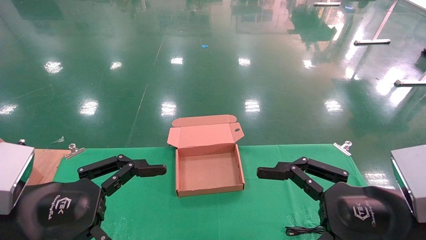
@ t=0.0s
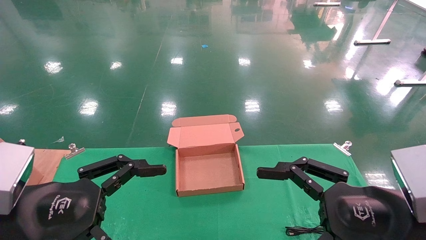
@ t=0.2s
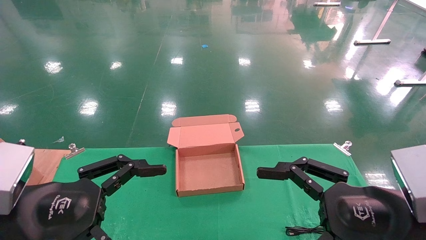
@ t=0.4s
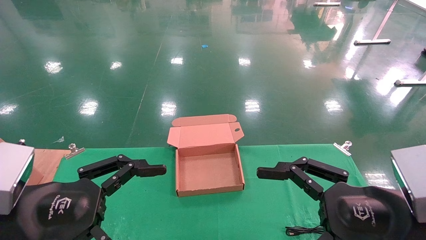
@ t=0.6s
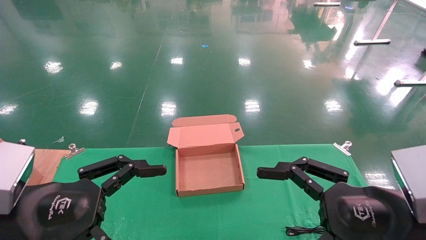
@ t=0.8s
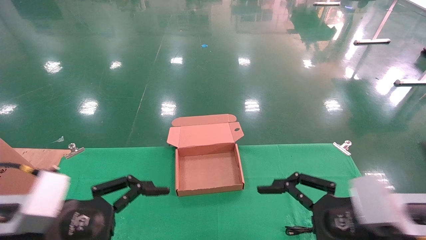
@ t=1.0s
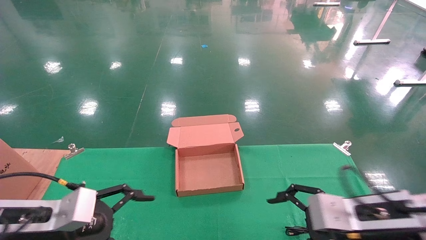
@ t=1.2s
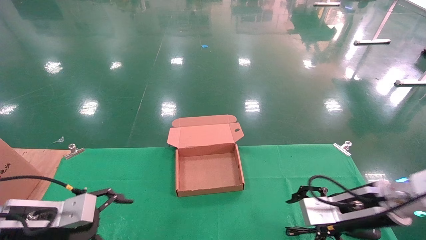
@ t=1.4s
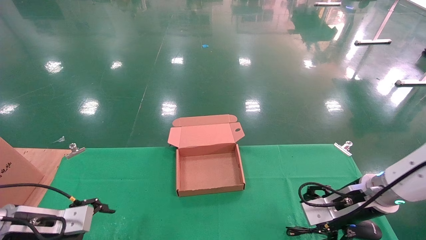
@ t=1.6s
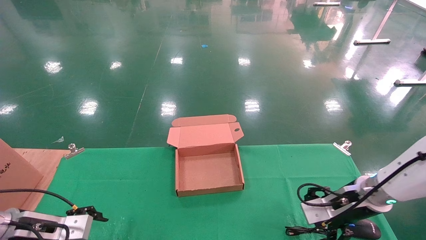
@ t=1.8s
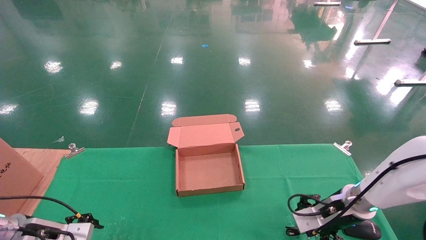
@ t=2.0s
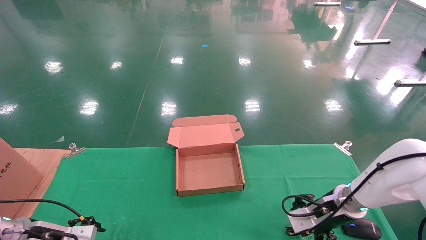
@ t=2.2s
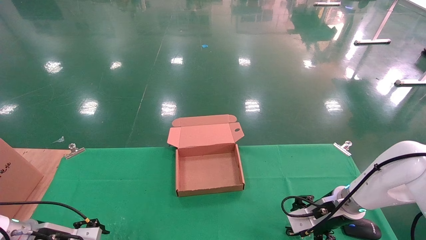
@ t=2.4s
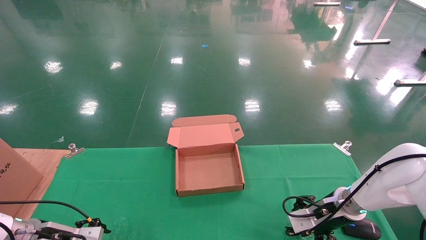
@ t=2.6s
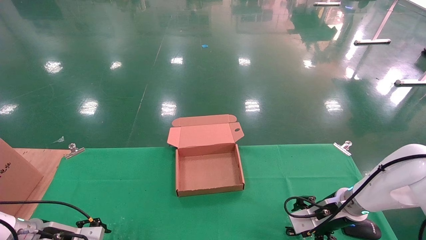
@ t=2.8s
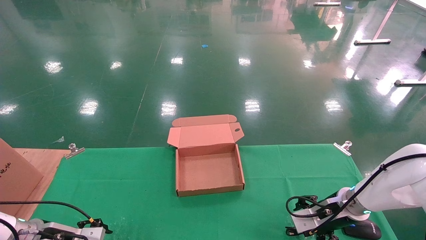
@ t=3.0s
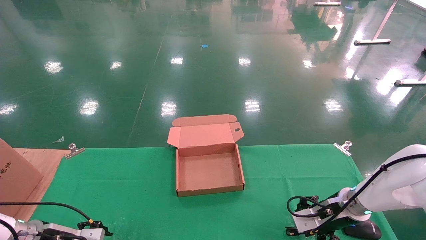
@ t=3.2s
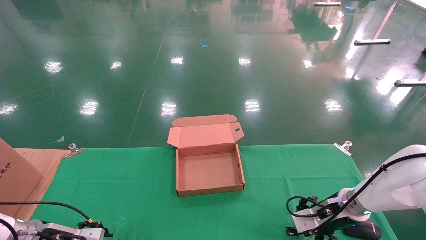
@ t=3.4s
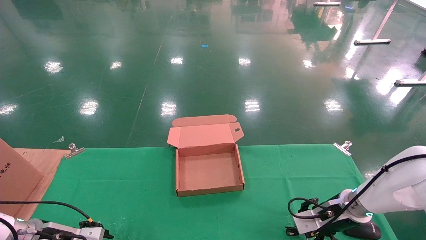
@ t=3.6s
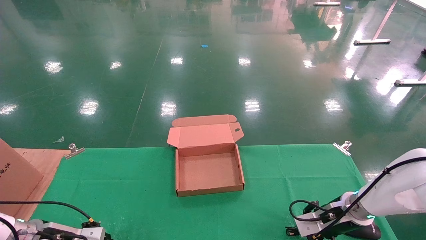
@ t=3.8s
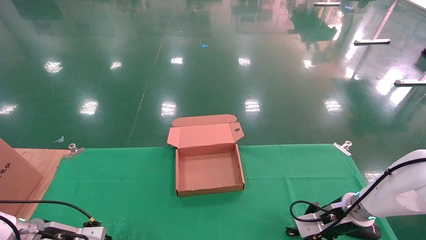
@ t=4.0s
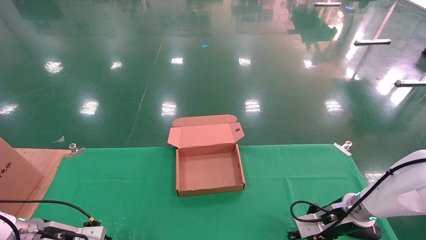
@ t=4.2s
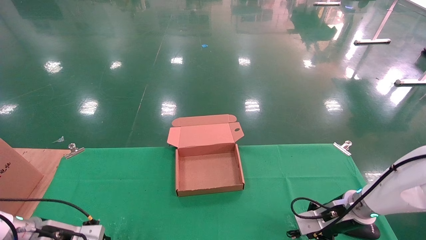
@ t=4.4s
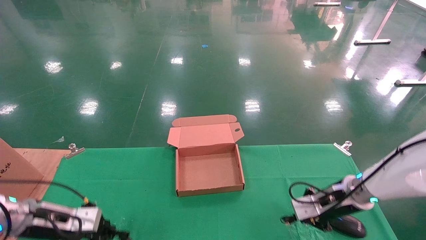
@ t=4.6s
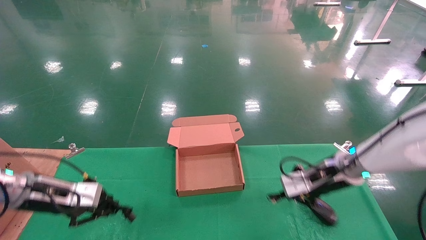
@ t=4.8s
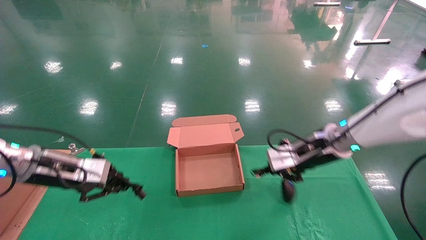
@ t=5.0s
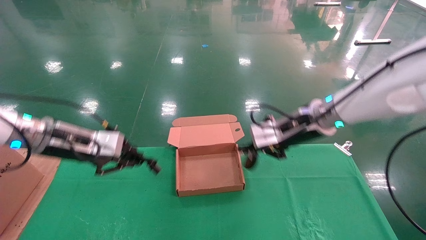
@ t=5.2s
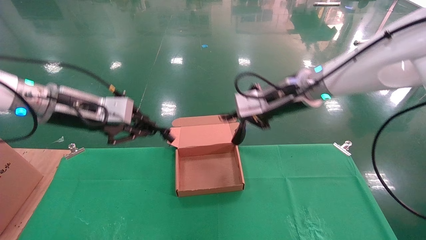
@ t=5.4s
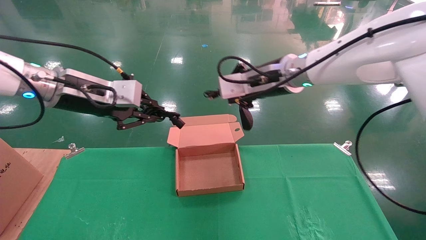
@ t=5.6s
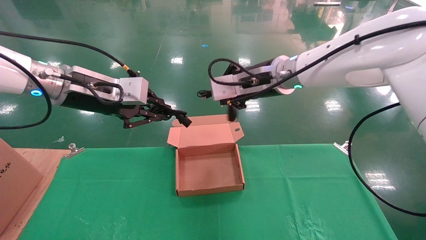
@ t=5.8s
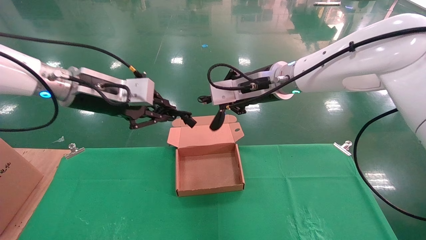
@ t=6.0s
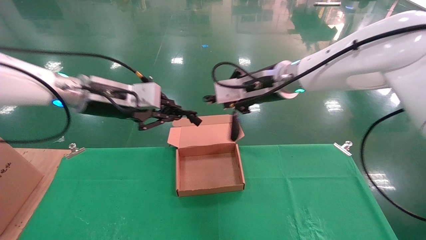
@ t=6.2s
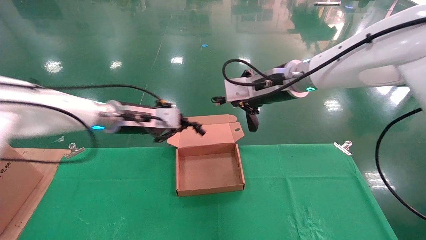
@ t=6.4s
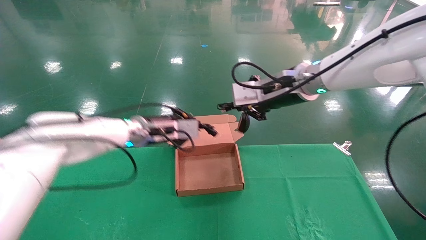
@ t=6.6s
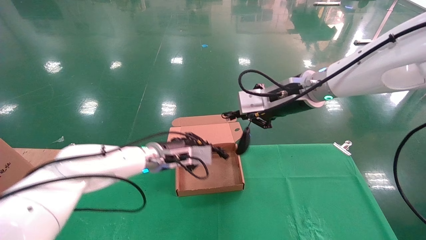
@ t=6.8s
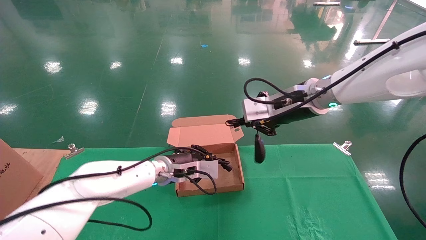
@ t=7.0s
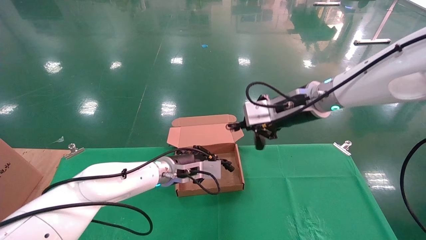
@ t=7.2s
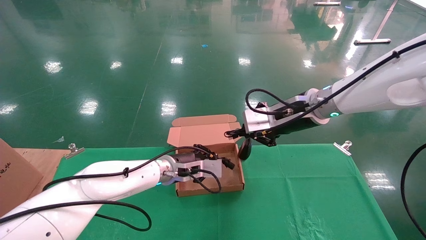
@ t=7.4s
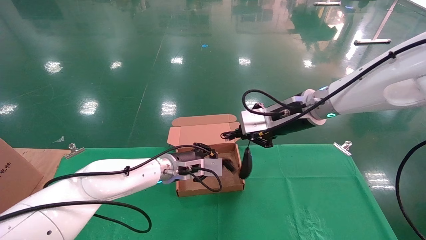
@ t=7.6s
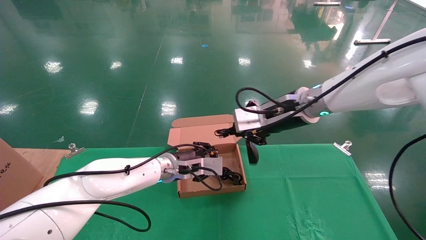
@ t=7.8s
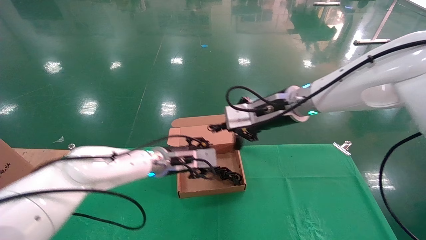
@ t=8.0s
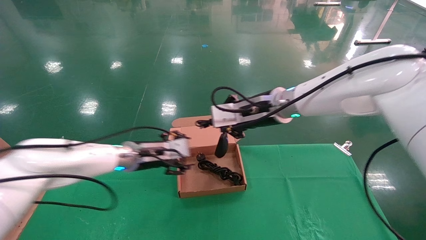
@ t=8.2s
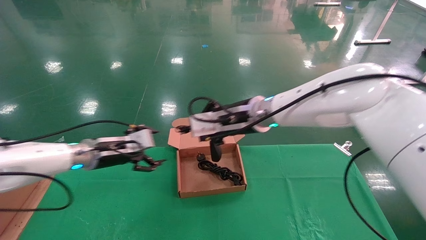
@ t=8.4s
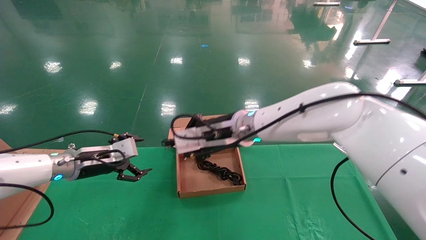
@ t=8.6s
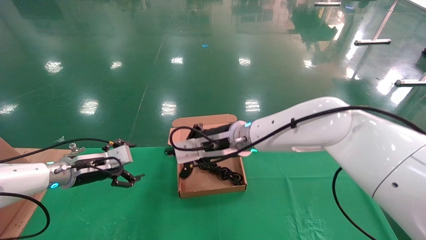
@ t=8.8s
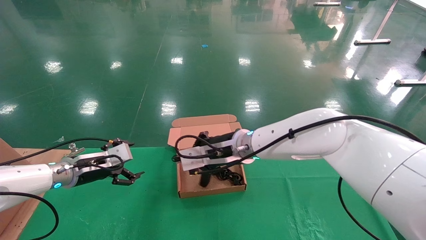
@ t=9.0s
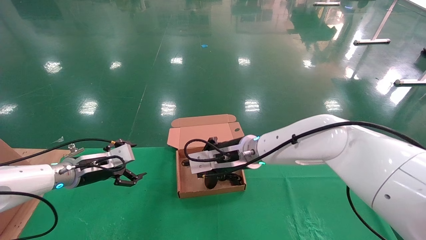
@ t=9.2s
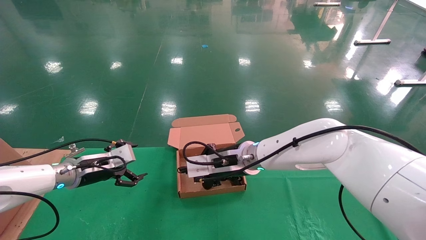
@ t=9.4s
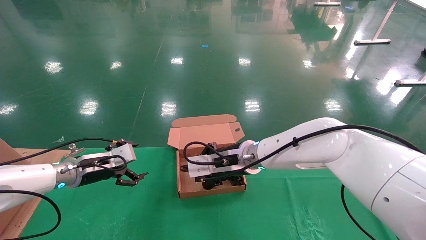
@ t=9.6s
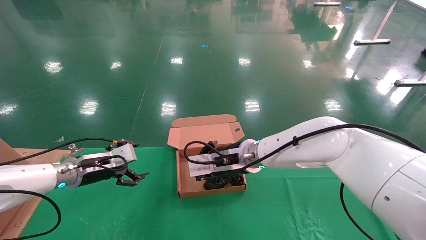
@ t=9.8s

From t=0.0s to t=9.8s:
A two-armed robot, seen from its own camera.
Step, from t=1.2s to t=4.8s: Grab and lift both the mouse and power cord from the accessory packaging area at the same time.
From t=0.0s to t=1.4s: The right gripper goes approximately 15 cm forward and downward, while the left gripper is displaced forward, downward and to the left by approximately 15 cm.
From t=1.4s to t=2.8s: The right gripper moves forward and downward, some 10 cm; the left gripper travels downward and forward by approximately 10 cm.
From t=2.8s to t=4.2s: The left gripper closes up. Meanwhile the right gripper closes its fingers.
From t=4.2s to t=5.6s: The right gripper heads upward and to the left, covering some 35 cm. The left gripper moves upward, about 30 cm.
From t=5.6s to t=7.0s: The left gripper goes about 25 cm downward, to the right and forward.
From t=7.0s to t=8.4s: The two grippers go some 10 cm to the left. The left gripper opens its fingers.
From t=8.4s to t=9.8s: The left gripper shifts roughly 5 cm to the left; the right gripper moves downward, approximately 10 cm.

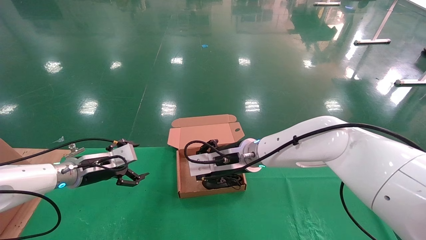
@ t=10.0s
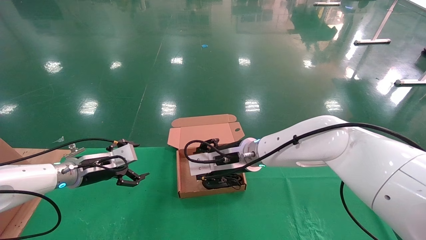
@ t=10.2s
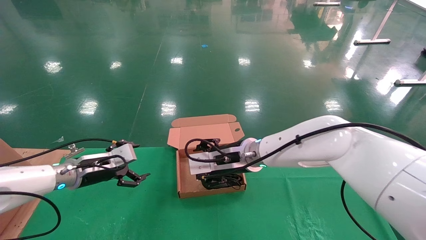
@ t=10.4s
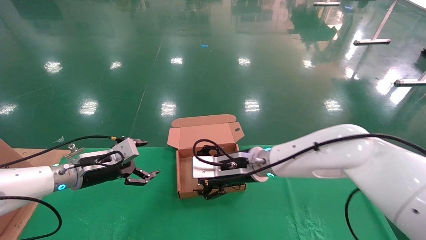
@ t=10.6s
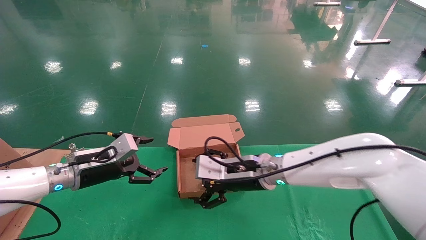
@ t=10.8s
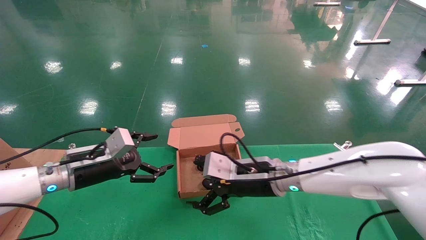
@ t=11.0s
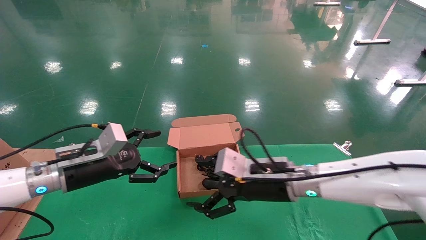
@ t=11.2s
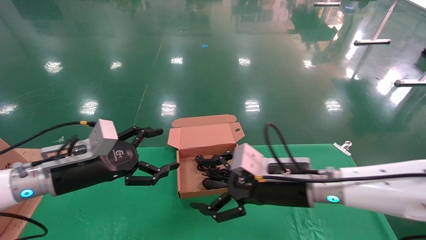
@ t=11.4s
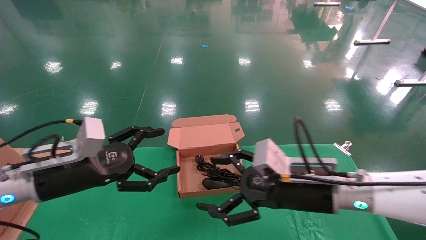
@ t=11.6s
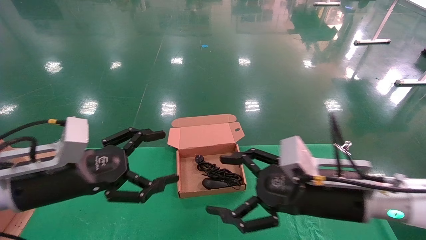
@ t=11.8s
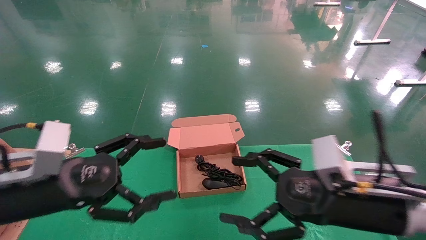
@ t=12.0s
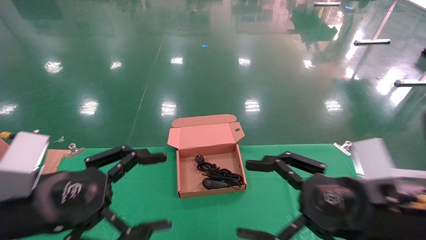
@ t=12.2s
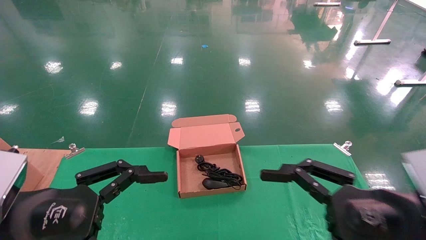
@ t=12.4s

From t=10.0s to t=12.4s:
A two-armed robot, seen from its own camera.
From t=10.0s to t=11.2s: The left gripper shifts some 10 cm backward. The right gripper heads backward and to the right, covering approximately 10 cm, and opens.
From t=11.2s to t=12.4s: The right gripper moves backward and to the right, roughly 20 cm; the left gripper shifts about 20 cm backward.
